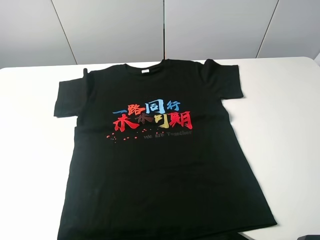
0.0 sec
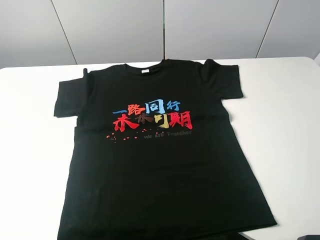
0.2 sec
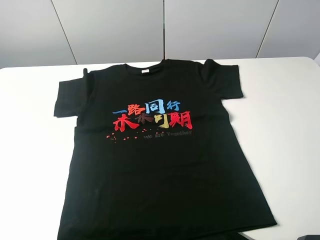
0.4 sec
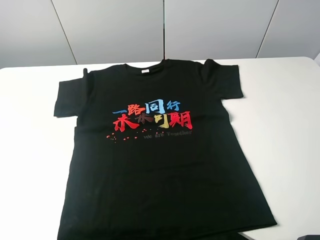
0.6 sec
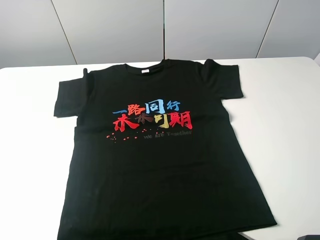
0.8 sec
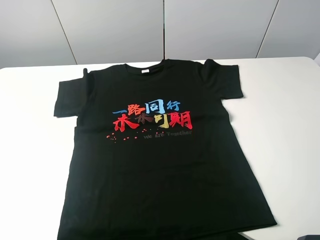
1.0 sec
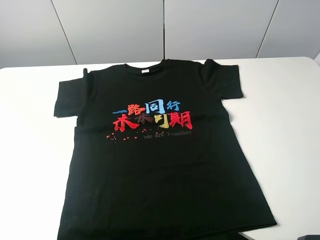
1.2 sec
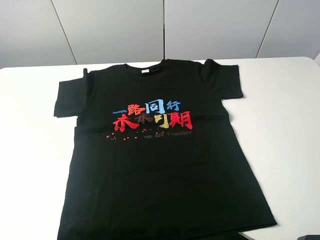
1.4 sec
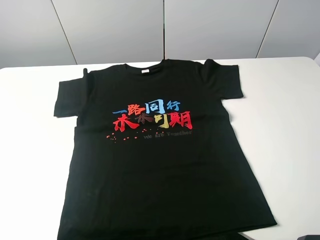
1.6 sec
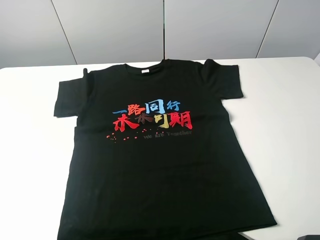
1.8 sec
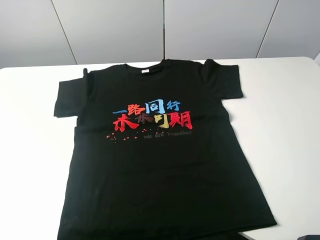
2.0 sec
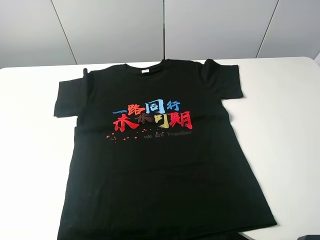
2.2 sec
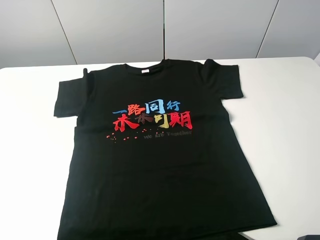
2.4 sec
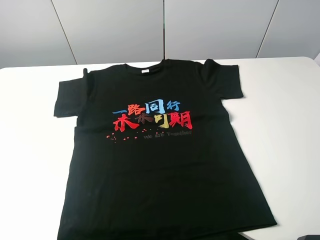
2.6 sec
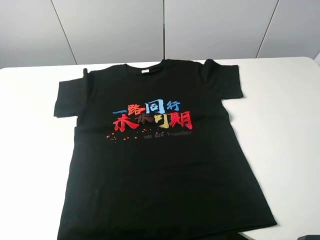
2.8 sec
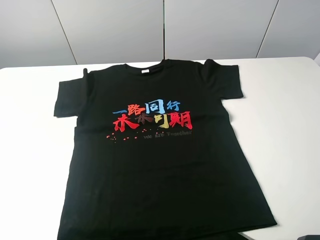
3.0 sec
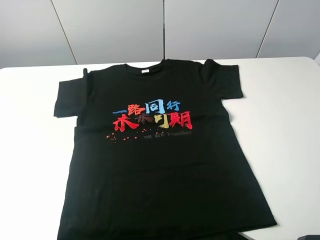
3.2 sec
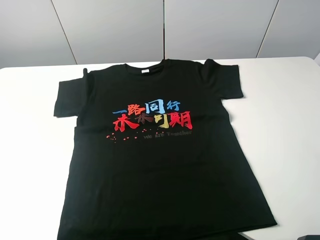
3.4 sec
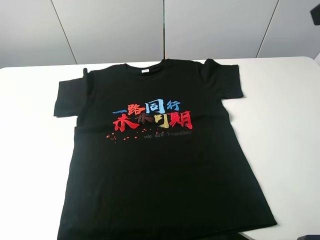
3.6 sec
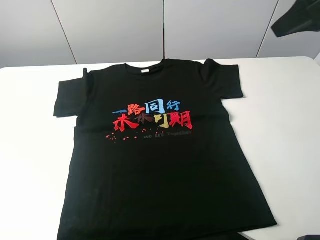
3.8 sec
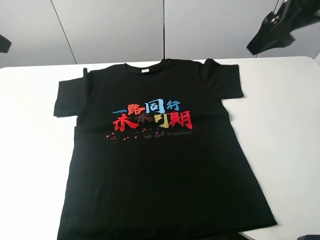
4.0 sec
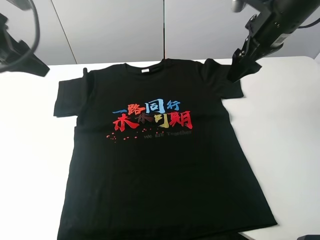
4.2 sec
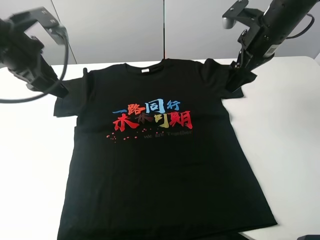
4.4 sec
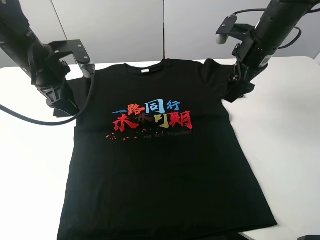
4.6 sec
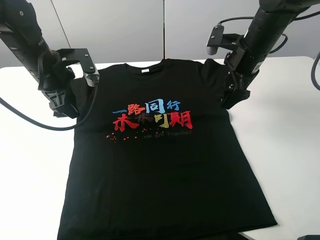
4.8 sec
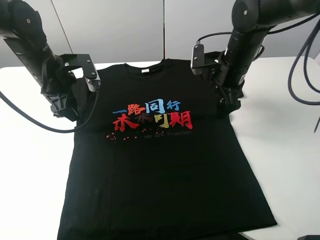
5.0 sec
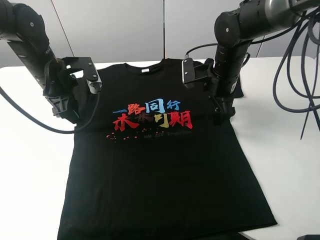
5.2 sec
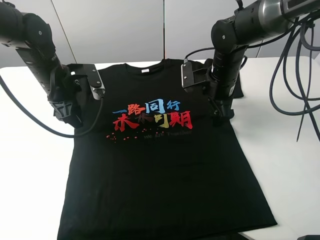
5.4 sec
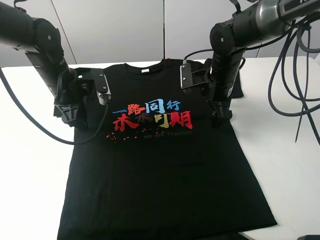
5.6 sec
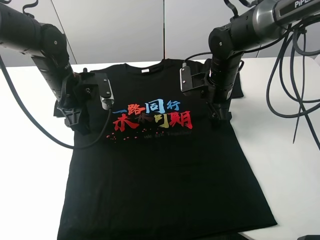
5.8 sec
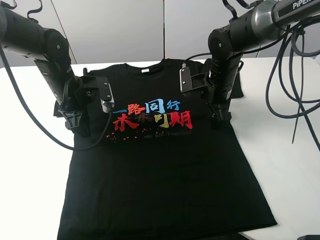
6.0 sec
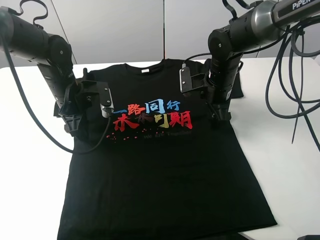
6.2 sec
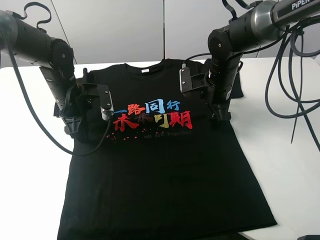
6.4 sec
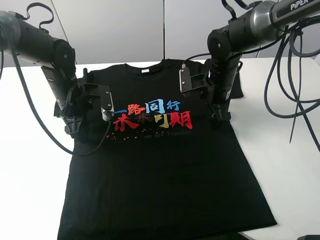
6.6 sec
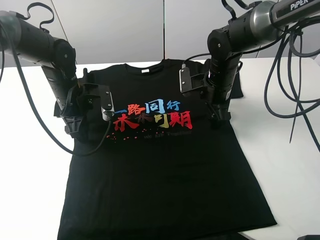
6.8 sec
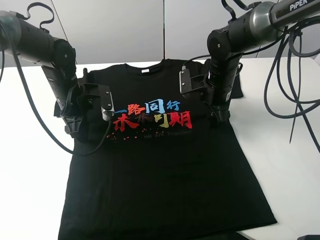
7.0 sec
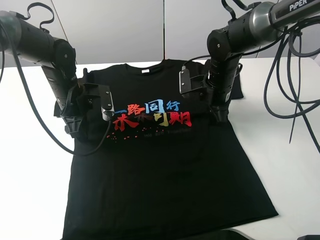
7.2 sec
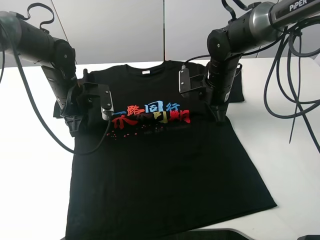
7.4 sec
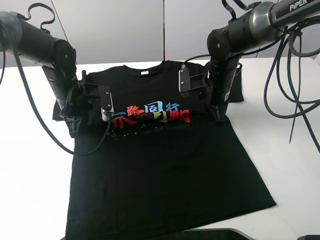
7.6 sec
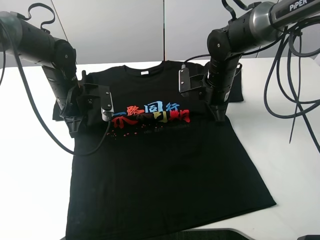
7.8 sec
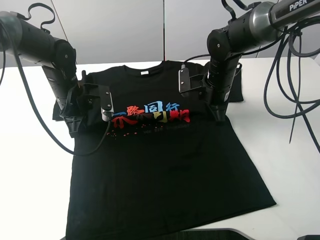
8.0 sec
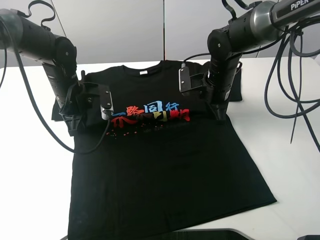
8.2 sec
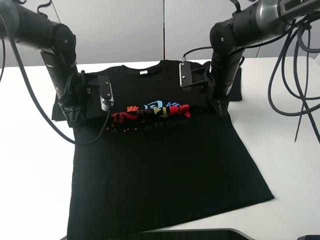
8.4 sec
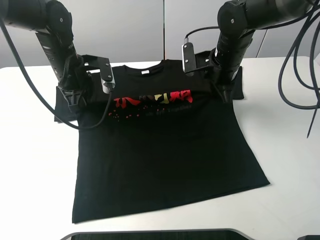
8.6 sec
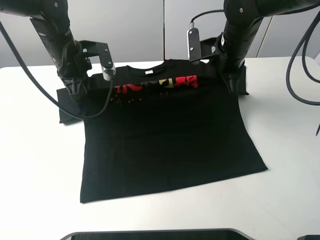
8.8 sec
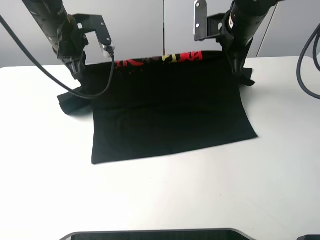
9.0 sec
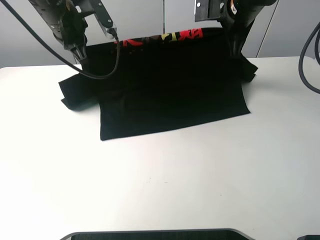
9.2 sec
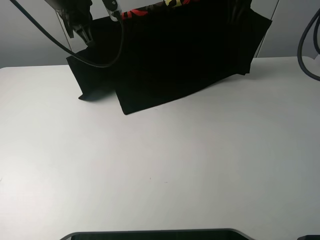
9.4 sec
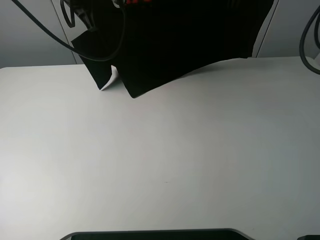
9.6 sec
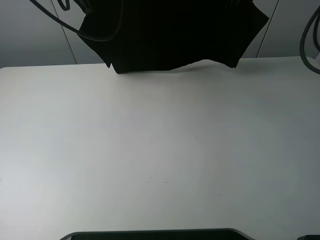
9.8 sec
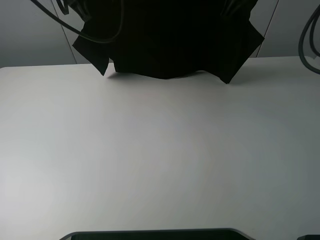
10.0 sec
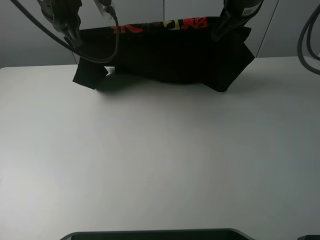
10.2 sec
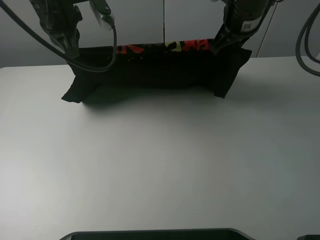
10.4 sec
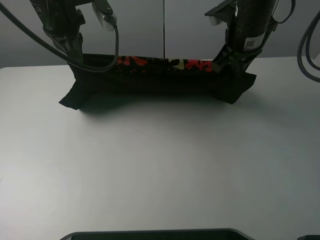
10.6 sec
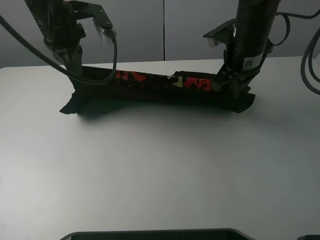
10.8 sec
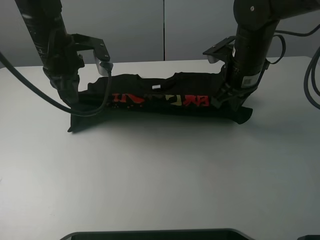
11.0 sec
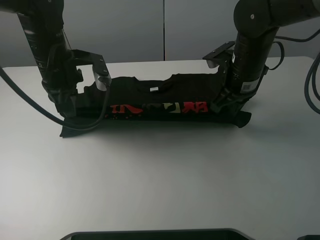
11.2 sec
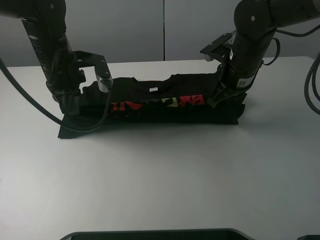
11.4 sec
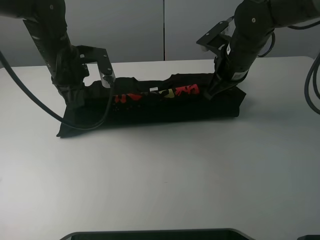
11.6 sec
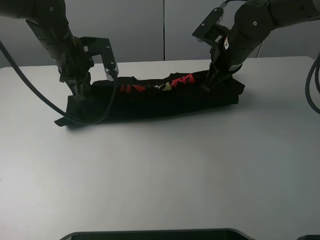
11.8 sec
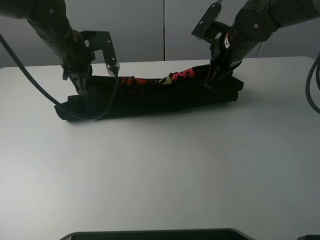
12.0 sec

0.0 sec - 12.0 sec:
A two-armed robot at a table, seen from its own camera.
Task of the whole recording: fold the clothes on the table.
Step, 0.0 sec - 6.8 sec: Lift the black T-shirt with the left gripper.
0.0 sec - 1.6 sec: The two grippers keep their place.
3.0 sec - 4.4 sec: Both grippers travel together forward, about 30 cm.
4.4 sec - 6.0 sec: The left gripper moves downward and to the right, roughly 15 cm; the right gripper moves downward and to the left, roughly 15 cm.
6.0 sec - 7.6 sec: The right gripper closes its fingers. The left gripper closes up.
7.6 sec - 9.0 sec: The right gripper travels upward by about 15 cm. The left gripper heads upward and forward, covering about 15 cm.
9.0 sec - 10.4 sec: The left gripper goes roughly 5 cm upward.
10.4 sec - 12.0 sec: The grippers both shift downward by roughly 10 cm.

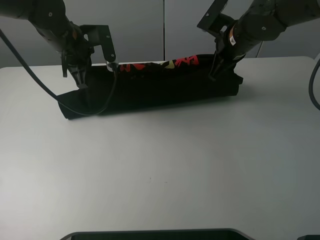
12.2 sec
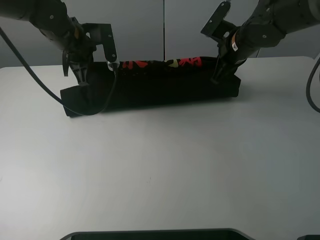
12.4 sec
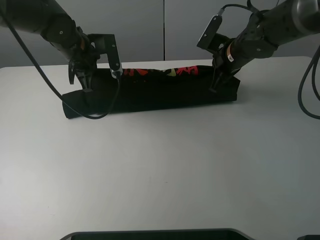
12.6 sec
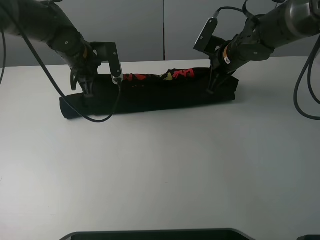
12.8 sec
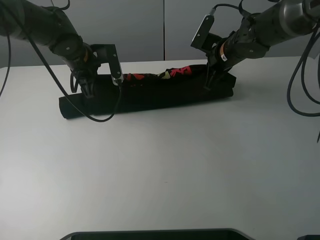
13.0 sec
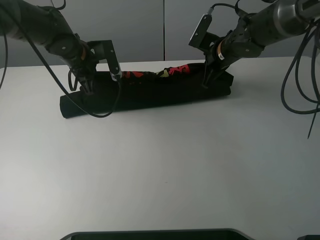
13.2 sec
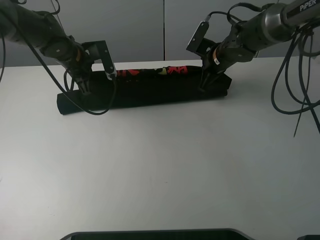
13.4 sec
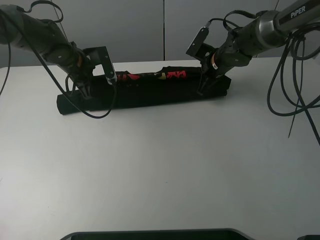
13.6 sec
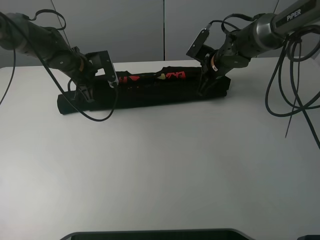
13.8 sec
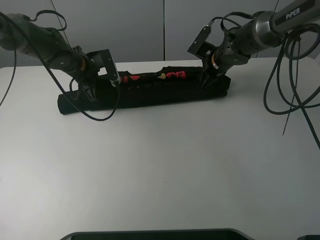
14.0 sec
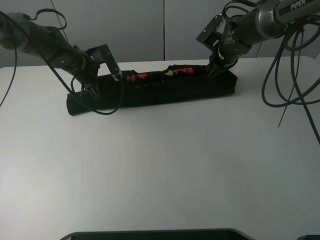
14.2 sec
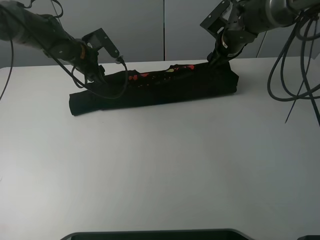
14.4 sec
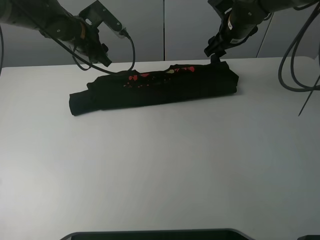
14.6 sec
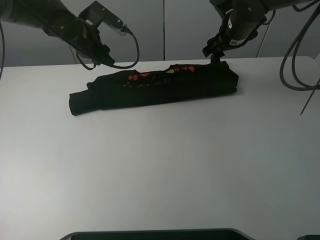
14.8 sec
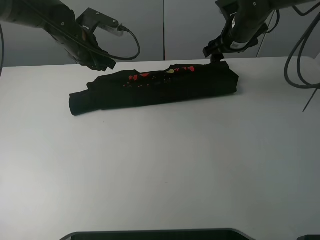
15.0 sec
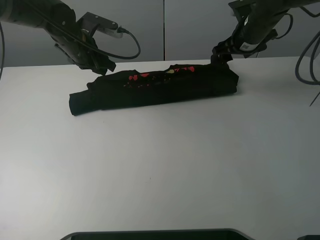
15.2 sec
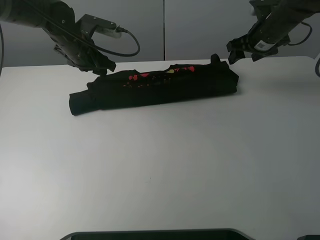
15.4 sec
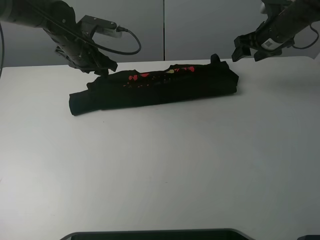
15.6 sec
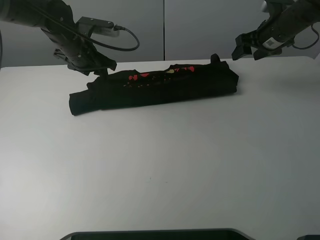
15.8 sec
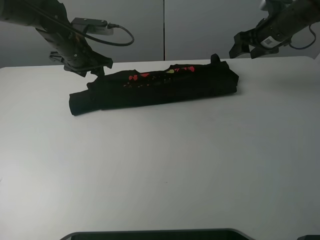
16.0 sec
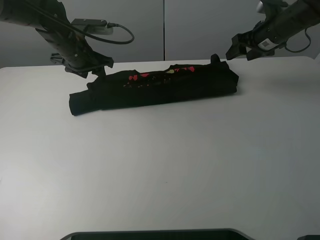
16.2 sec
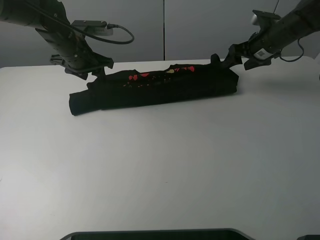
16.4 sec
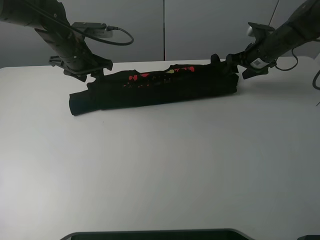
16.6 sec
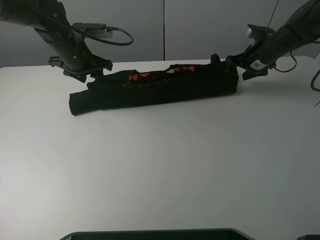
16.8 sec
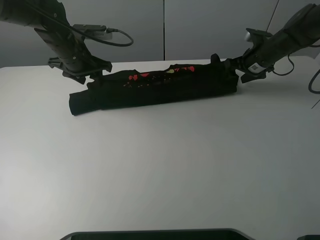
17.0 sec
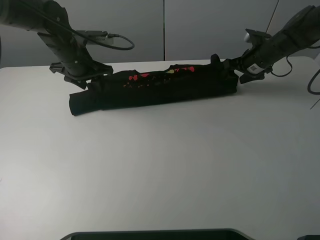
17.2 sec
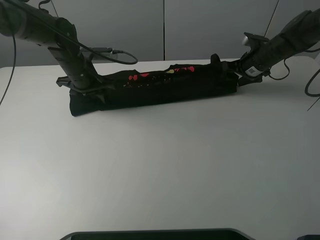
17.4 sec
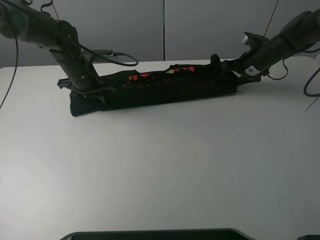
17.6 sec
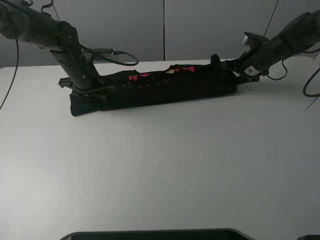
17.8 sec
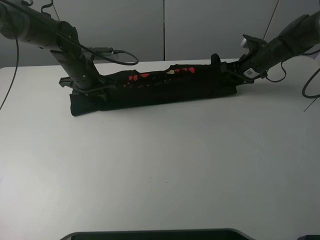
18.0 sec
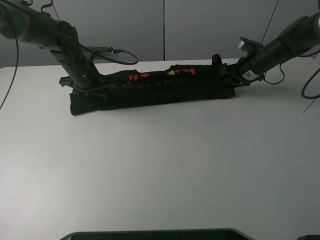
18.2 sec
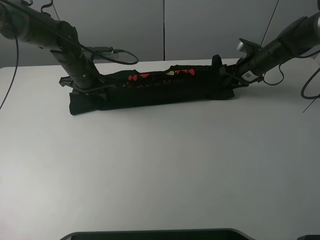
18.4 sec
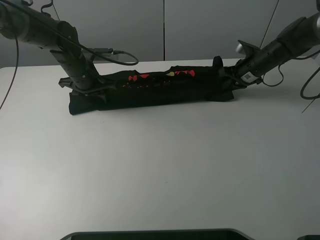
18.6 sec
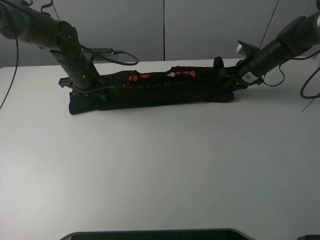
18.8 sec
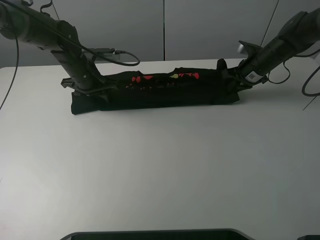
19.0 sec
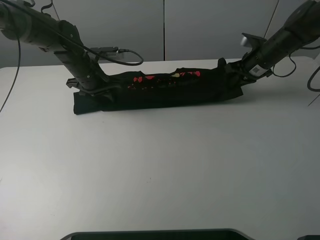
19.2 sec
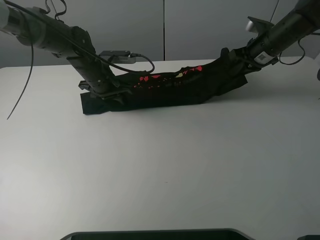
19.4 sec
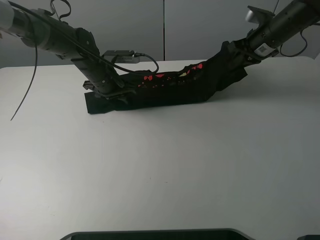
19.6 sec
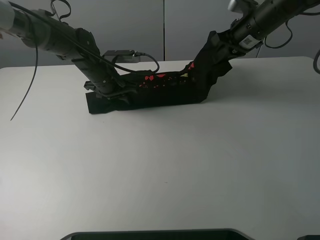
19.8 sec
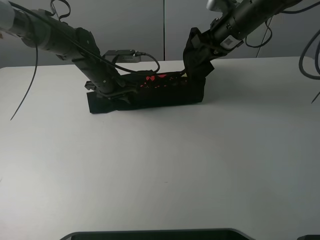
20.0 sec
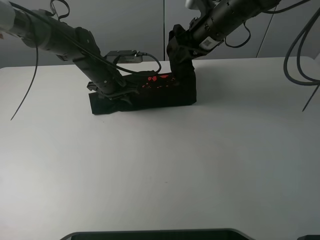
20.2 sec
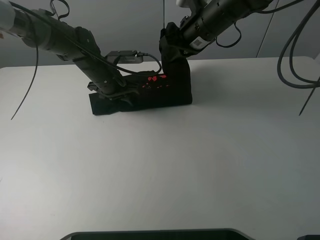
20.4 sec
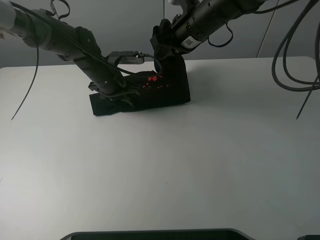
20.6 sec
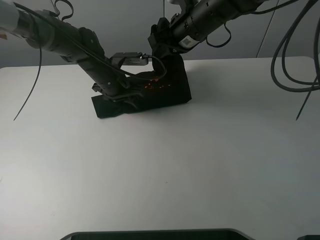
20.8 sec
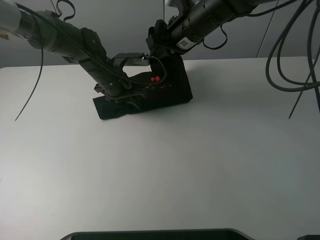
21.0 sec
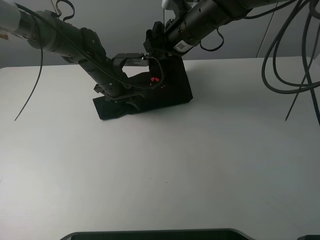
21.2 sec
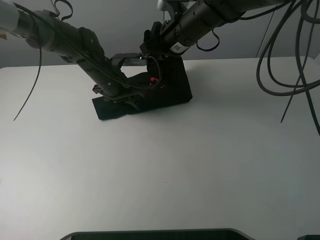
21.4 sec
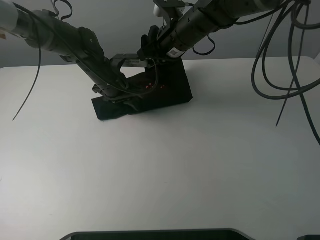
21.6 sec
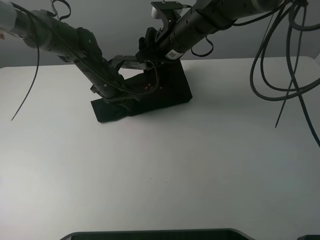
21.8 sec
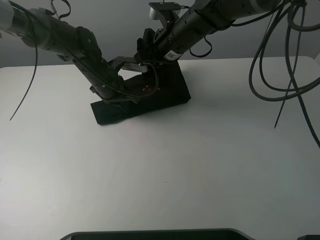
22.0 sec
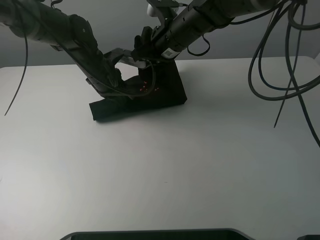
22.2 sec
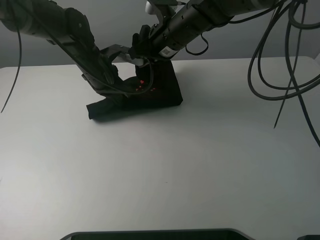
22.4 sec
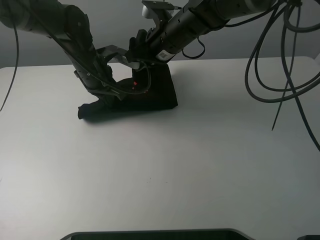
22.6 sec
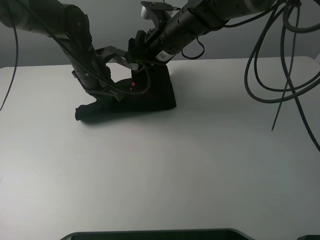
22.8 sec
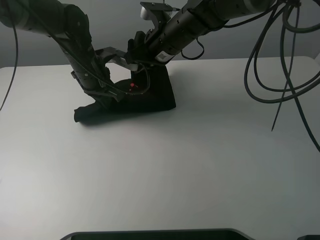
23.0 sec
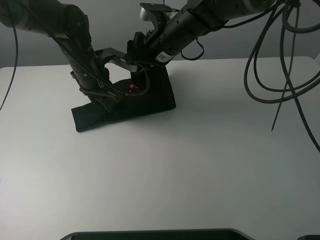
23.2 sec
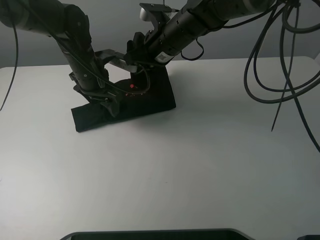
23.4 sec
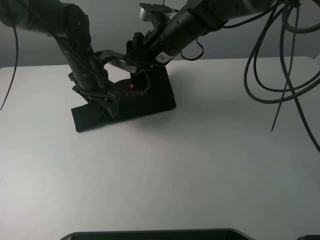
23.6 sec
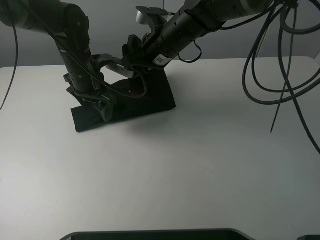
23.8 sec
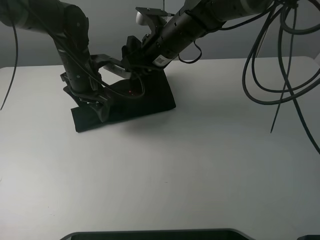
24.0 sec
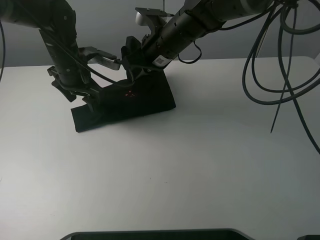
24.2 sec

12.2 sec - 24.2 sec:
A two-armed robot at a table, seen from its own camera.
Task of the whole recording: fold the clothes on the table.
Step, 12.2 sec - 14.6 sec: Fold the black T-shirt downward with the left gripper.
Step, 15.0 sec - 18.2 sec: Grasp the black T-shirt with the right gripper.
12.2 sec - 13.8 sec: The left gripper is displaced downward by roughly 10 cm. The right gripper heads downward and forward, covering some 10 cm, and opens its fingers.
13.8 sec - 15.2 sec: The right gripper moves upward and to the right, about 10 cm. The left gripper travels upward by approximately 5 cm, and opens up.
15.2 sec - 16.6 sec: The right gripper travels to the right and downward by roughly 10 cm.
16.6 sec - 18.2 sec: The left gripper goes some 5 cm downward; the right gripper closes.
18.2 sec - 19.8 sec: The left gripper travels to the right by some 5 cm, while the right gripper shifts approximately 15 cm upward and to the left.
19.8 sec - 21.2 sec: The right gripper goes roughly 15 cm to the left.
21.2 sec - 22.6 sec: The left gripper changes place by roughly 5 cm, and closes up.
22.6 sec - 24.2 sec: The left gripper opens.
